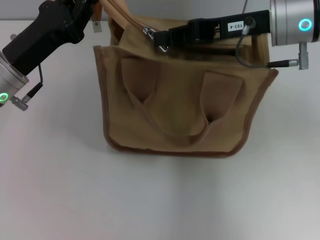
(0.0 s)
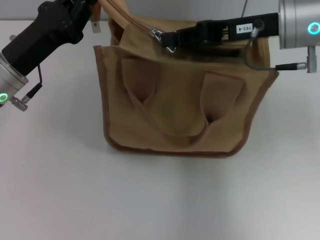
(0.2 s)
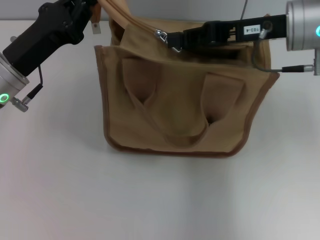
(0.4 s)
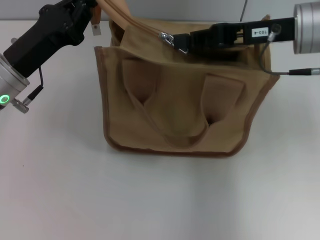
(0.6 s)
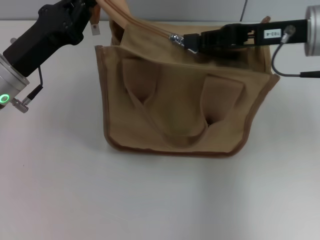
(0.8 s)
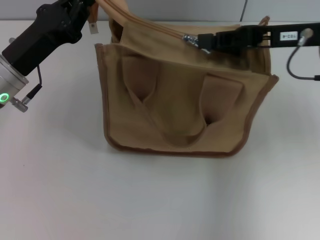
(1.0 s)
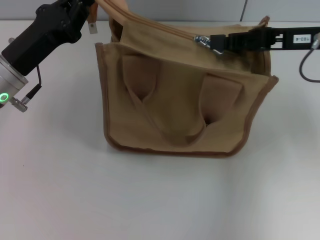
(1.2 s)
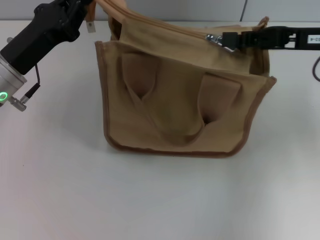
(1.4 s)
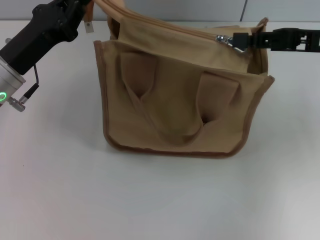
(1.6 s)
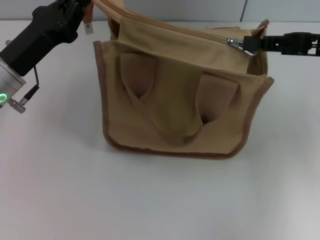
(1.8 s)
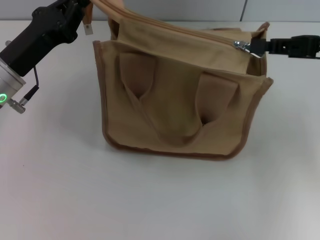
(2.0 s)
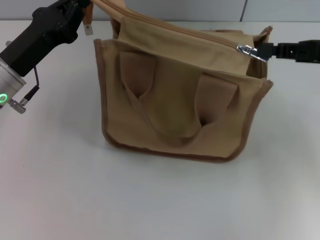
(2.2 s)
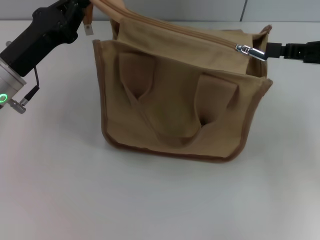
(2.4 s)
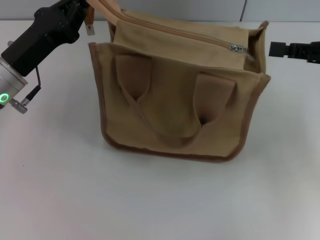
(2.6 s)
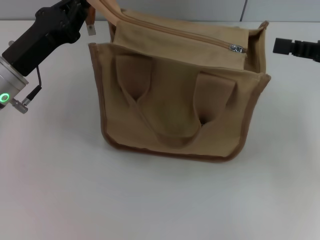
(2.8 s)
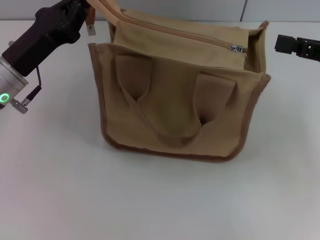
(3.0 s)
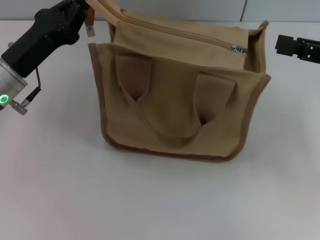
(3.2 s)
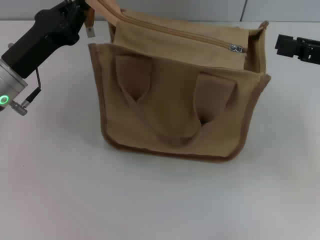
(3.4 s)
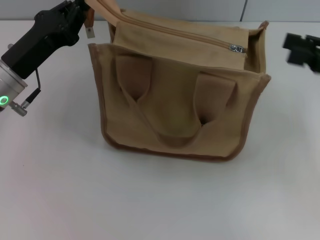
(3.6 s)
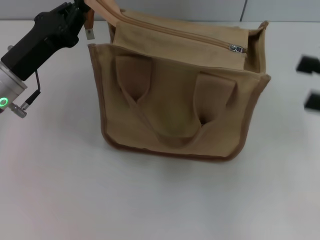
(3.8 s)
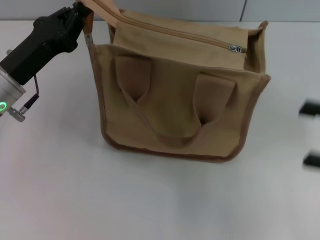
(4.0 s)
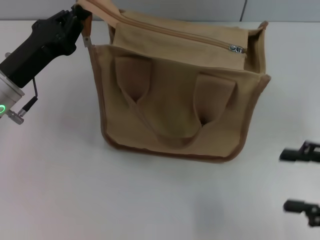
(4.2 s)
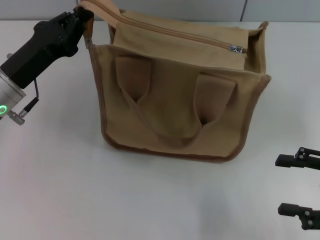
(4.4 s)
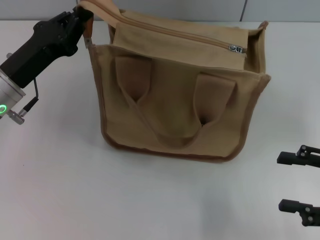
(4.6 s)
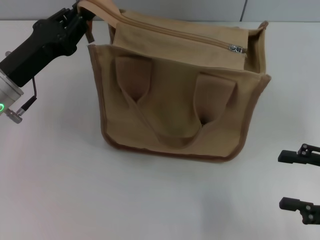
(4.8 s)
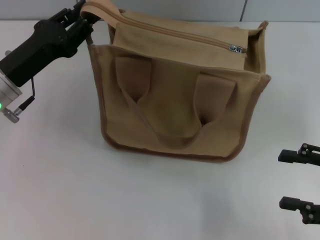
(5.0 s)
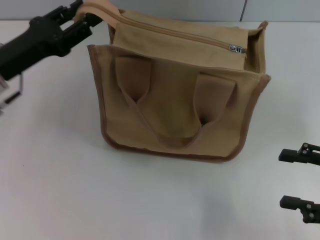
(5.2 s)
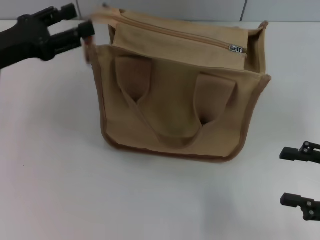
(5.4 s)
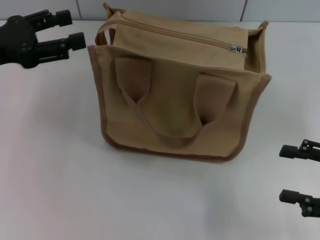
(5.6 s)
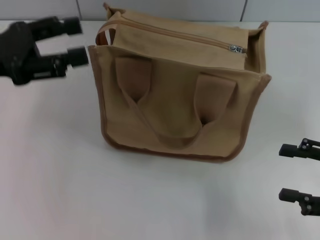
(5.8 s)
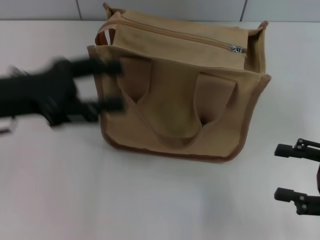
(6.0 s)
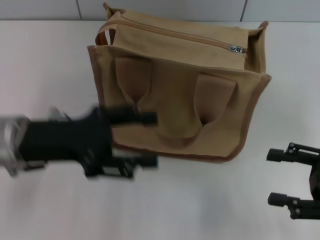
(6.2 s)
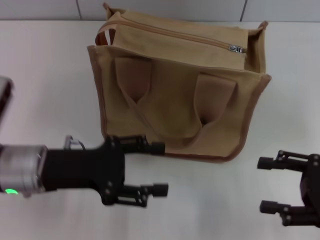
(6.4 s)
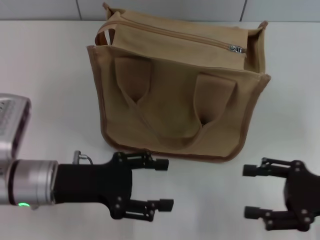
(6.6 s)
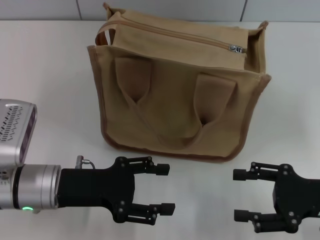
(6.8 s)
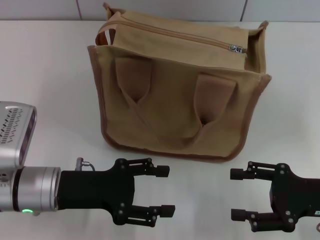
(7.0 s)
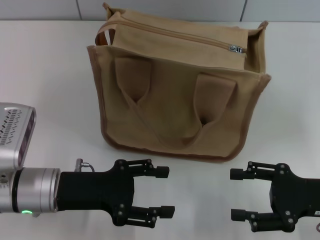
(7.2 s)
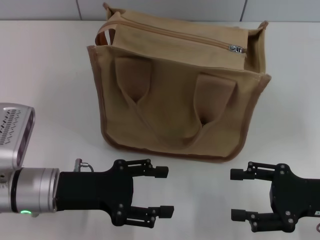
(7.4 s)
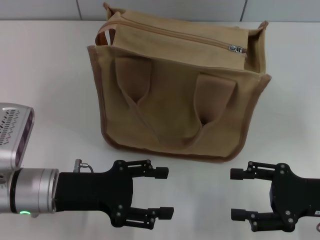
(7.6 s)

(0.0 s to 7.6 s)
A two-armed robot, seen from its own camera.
Step, 0.0 s - 2.4 s: Pull up the zipper with your right hand.
Step, 2.6 s - 5.4 s: Grab the zipper with your left hand.
0.0 s - 1.6 s: The right gripper travels to the right by about 10 cm.
1.6 s - 3.0 s: The right gripper shifts by about 5 cm.
3.0 s - 4.6 s: The right gripper moves backward and downward, about 15 cm, and opens up.
4.6 s - 6.0 s: The left gripper travels upward by some 5 cm, and opens its fingers.
6.0 s - 7.6 s: The left gripper goes about 15 cm downward, to the right and backward, while the right gripper moves about 5 cm.

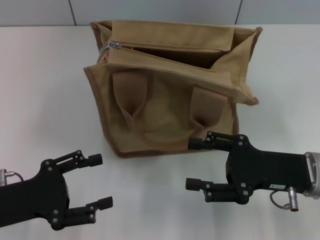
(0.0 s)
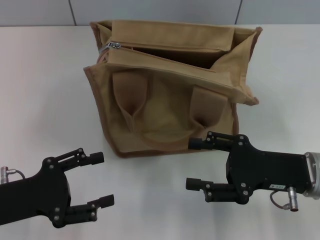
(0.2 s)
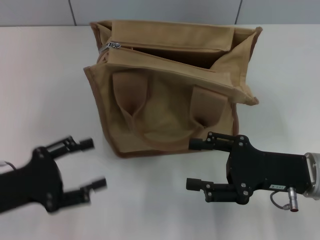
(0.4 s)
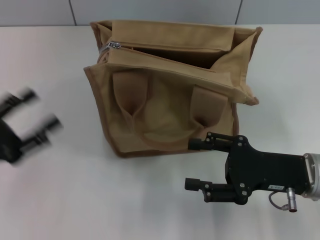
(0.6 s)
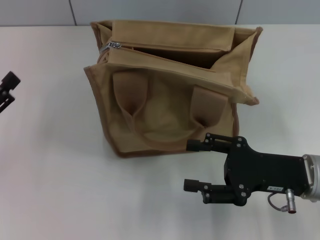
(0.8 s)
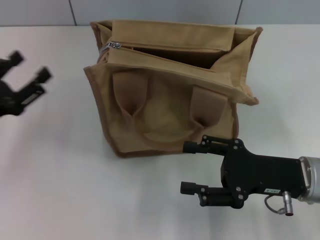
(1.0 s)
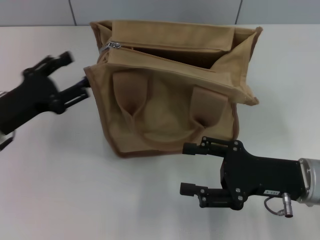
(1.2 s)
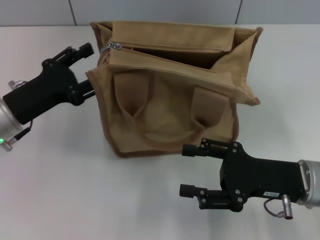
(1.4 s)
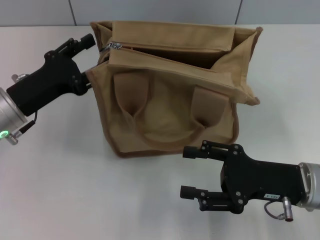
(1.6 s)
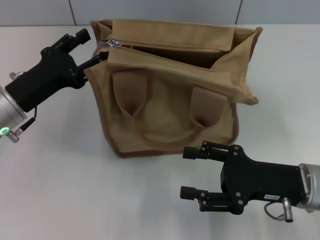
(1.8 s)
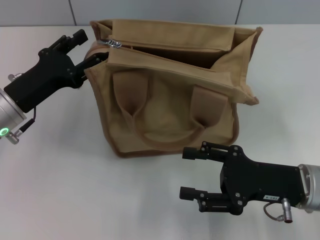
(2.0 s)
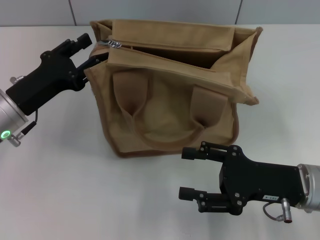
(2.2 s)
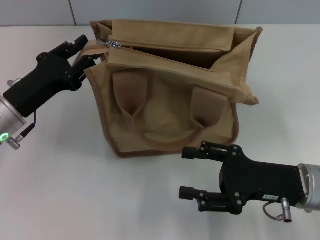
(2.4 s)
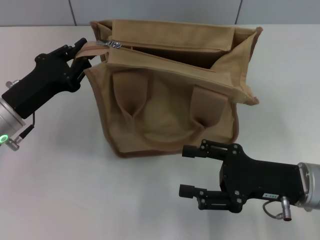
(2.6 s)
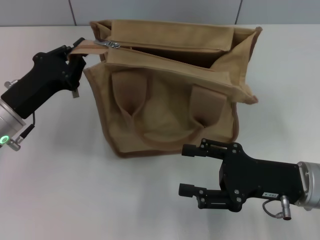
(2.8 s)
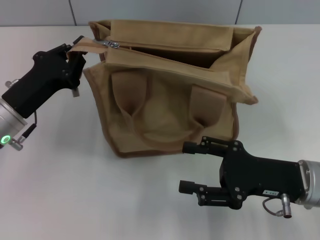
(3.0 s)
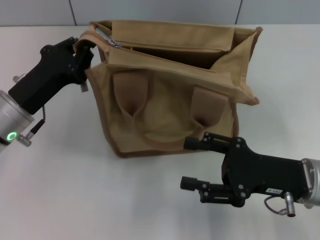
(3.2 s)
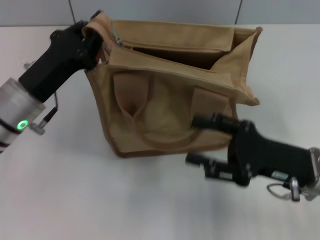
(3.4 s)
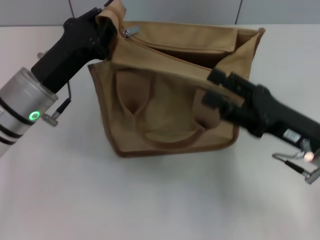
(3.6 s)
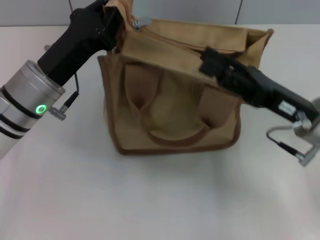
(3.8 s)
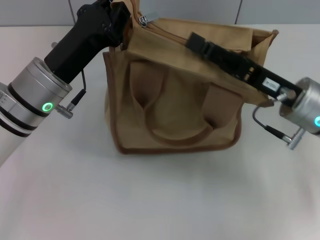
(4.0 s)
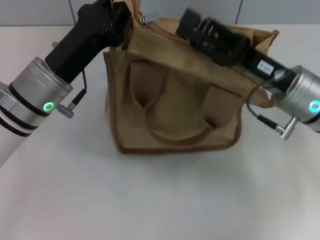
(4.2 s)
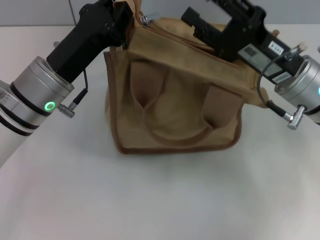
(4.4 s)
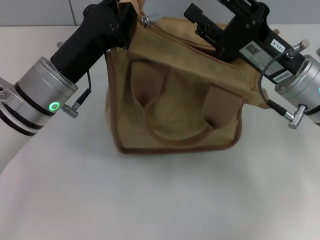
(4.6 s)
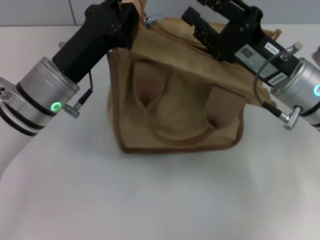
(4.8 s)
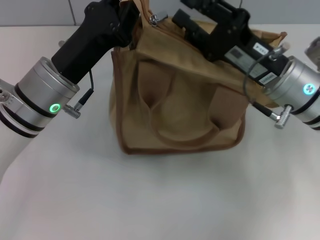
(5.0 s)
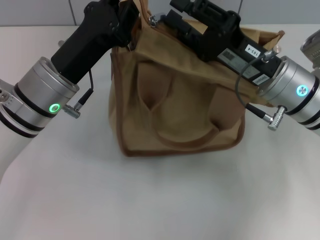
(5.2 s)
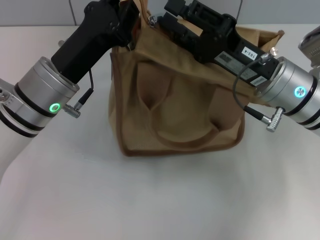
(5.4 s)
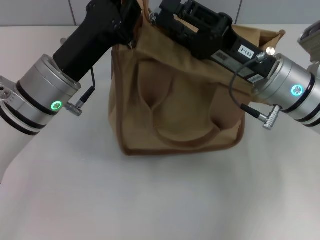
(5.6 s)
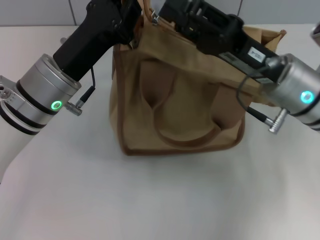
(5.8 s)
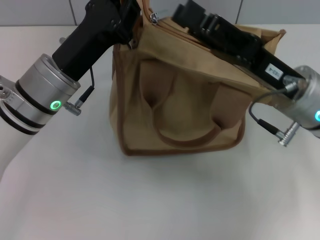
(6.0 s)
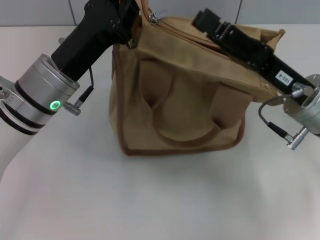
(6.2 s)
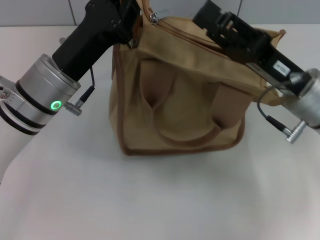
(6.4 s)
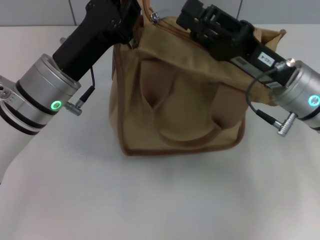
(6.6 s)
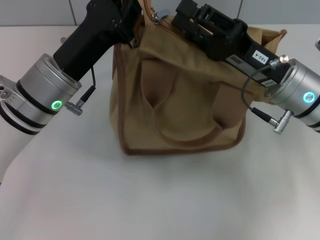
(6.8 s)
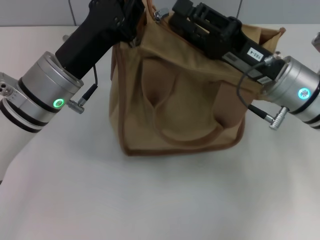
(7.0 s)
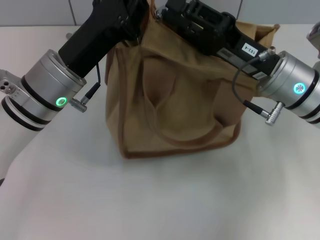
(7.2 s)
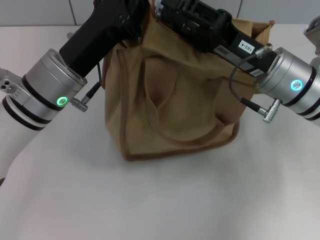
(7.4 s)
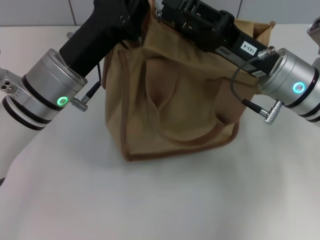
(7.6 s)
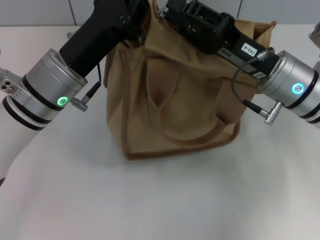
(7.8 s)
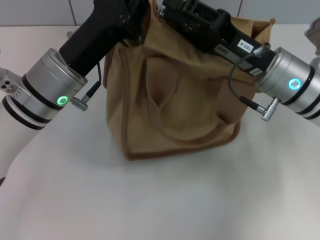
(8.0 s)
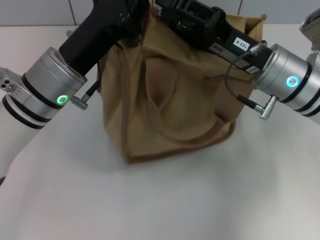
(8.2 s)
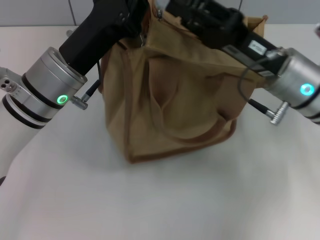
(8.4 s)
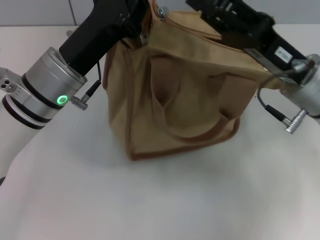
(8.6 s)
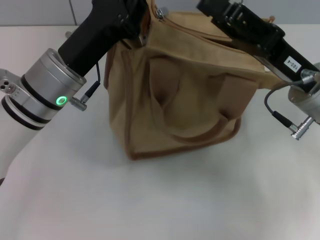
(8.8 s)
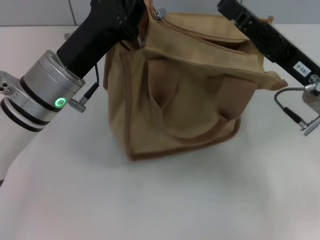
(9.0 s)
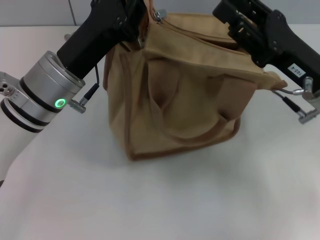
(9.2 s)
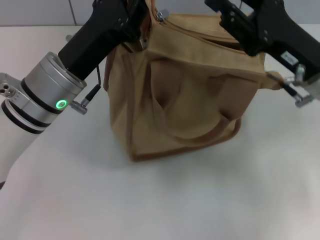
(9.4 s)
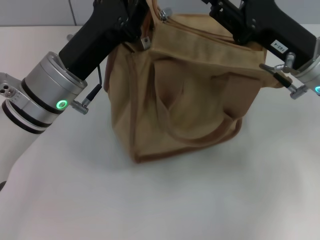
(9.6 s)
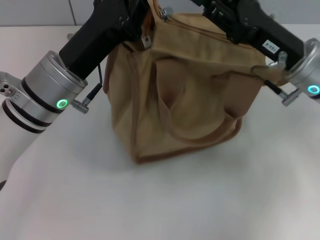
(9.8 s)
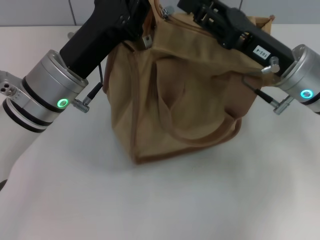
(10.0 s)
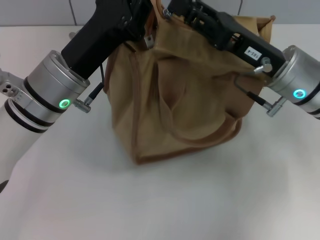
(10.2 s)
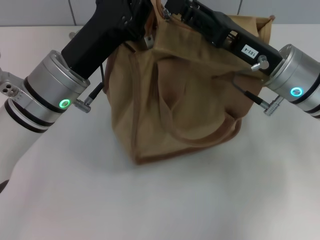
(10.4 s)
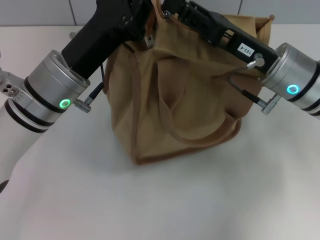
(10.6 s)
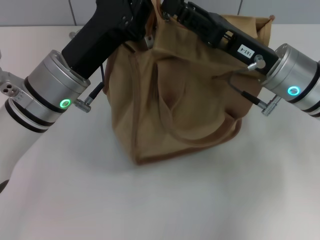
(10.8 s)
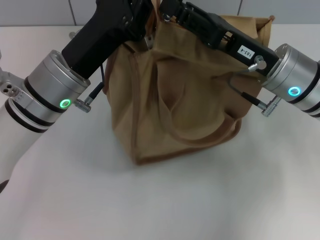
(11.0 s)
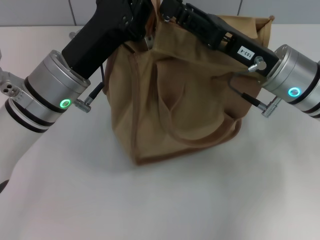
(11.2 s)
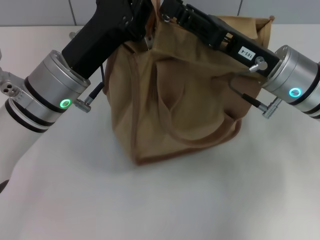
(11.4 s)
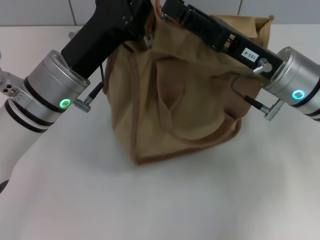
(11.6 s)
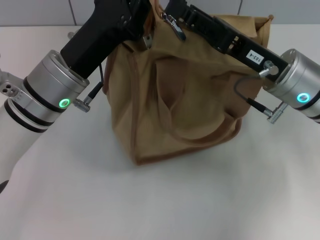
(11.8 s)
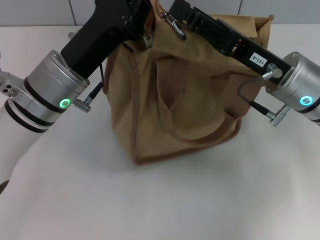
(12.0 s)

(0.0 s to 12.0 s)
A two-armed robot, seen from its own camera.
0.0 s - 1.6 s: The left gripper shifts some 10 cm forward.
1.6 s - 3.0 s: The left gripper closes.
3.0 s - 4.4 s: The left gripper travels to the right by approximately 5 cm; the right gripper heads forward and upward, covering some 10 cm.
7.6 s - 9.0 s: The right gripper shifts about 5 cm to the right.
9.0 s - 10.4 s: The right gripper moves roughly 5 cm.
10.4 s - 12.0 s: The grippers move only a little.

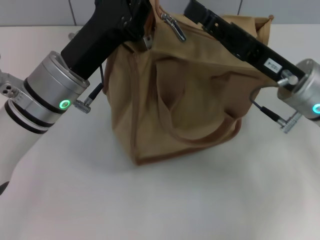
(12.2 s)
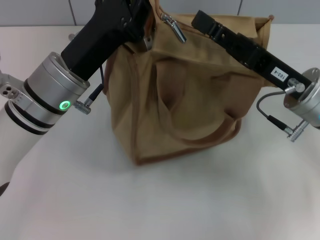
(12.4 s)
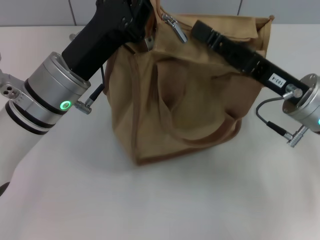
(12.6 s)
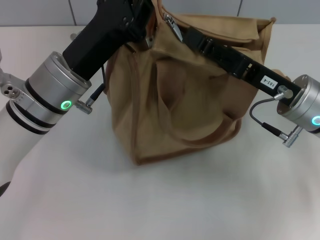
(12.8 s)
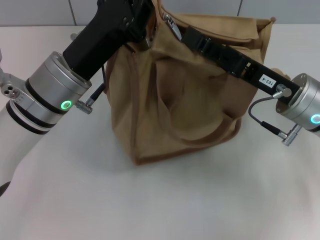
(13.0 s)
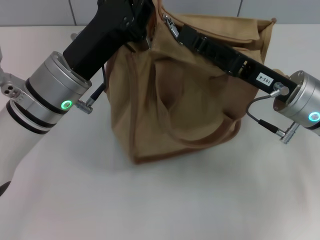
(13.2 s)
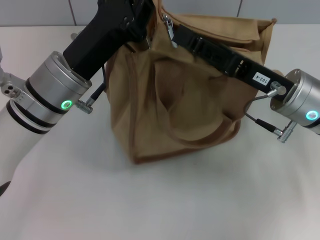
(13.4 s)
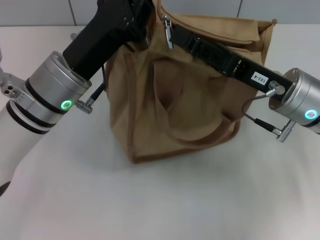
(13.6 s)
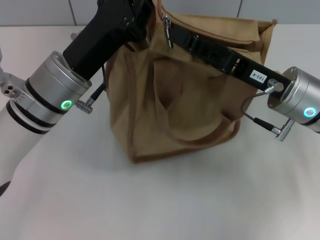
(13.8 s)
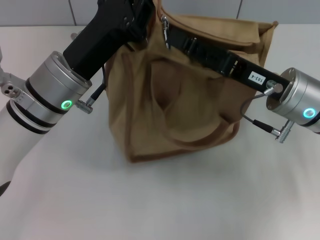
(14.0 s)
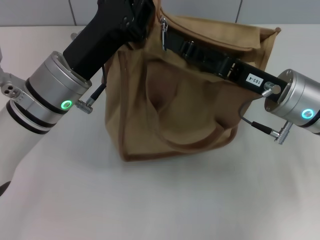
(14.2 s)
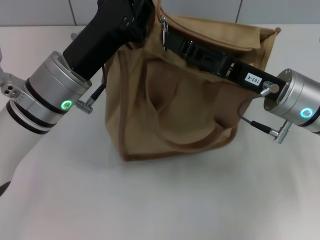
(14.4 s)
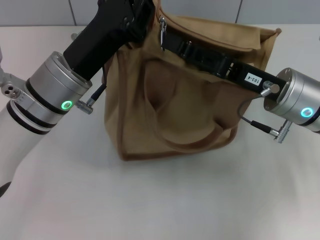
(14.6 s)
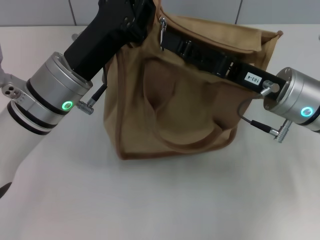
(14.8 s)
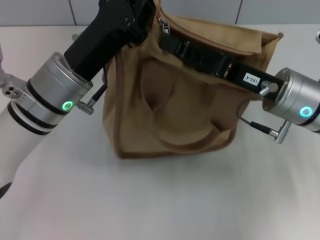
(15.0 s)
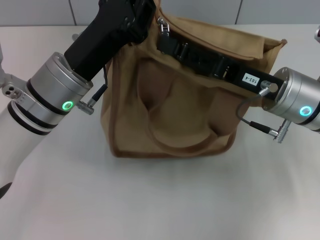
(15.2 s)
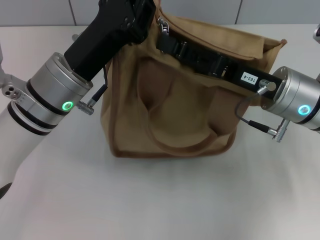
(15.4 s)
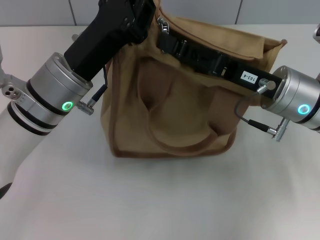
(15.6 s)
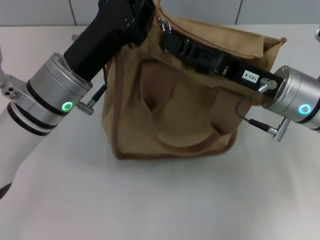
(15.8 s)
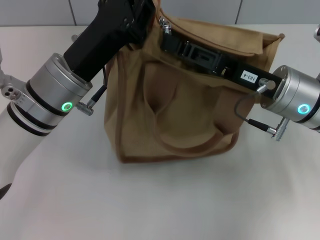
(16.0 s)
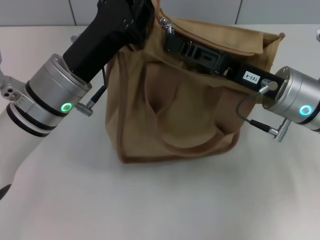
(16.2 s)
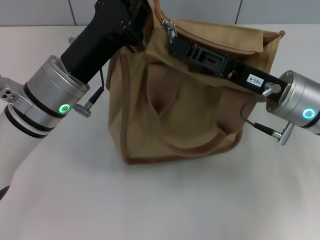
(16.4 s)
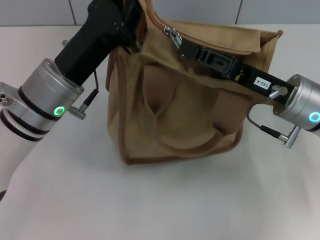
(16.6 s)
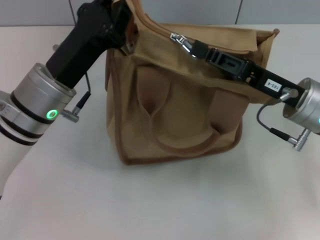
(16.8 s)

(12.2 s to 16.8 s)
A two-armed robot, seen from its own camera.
12.2 s - 15.2 s: The grippers stay close to where they were, moving slightly.
15.2 s - 16.8 s: The right gripper closes its fingers.